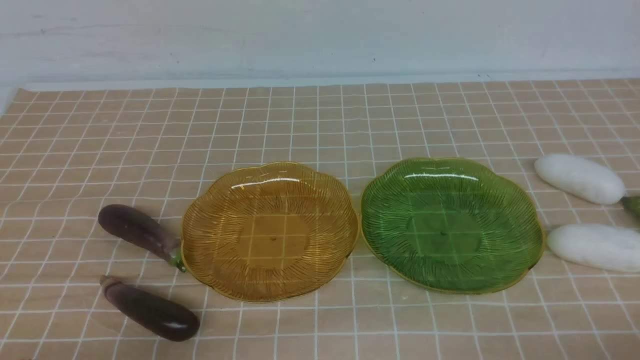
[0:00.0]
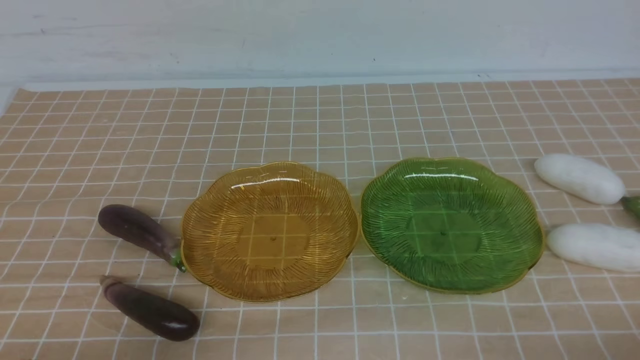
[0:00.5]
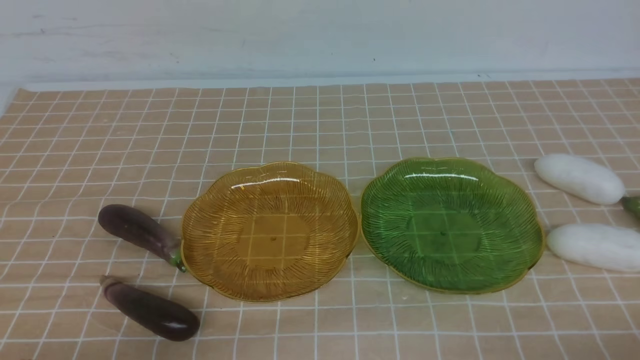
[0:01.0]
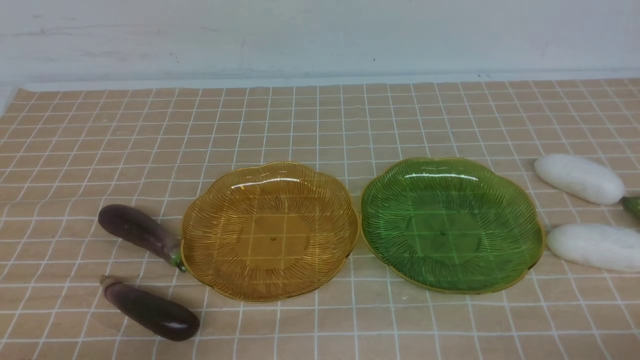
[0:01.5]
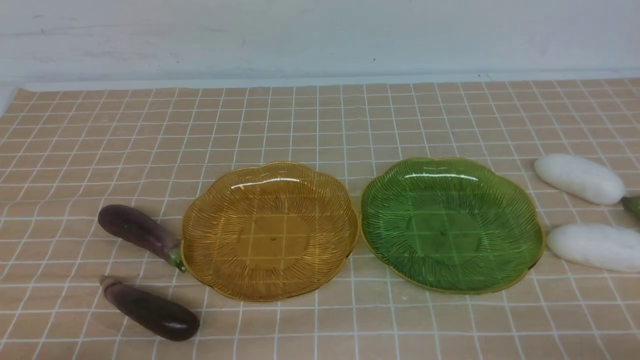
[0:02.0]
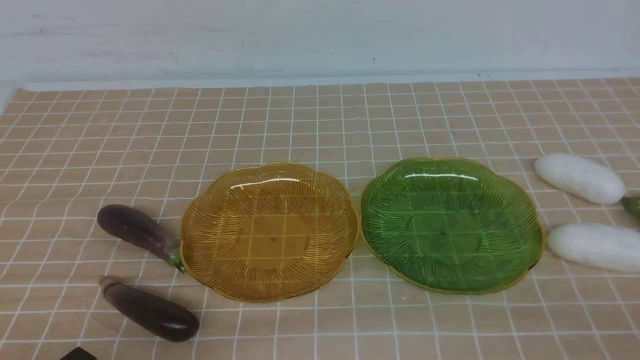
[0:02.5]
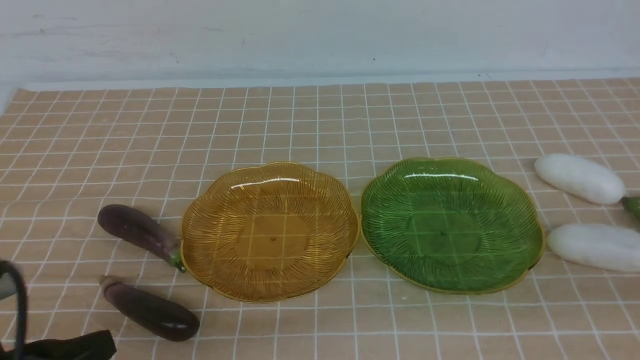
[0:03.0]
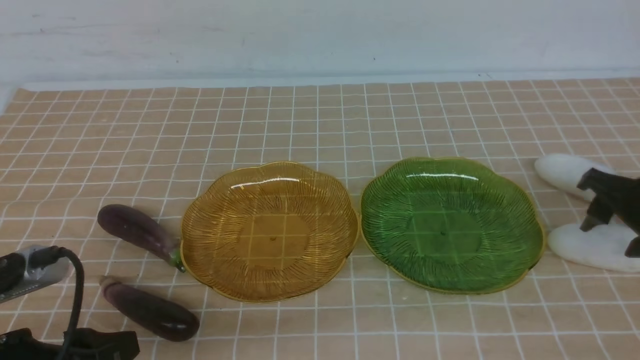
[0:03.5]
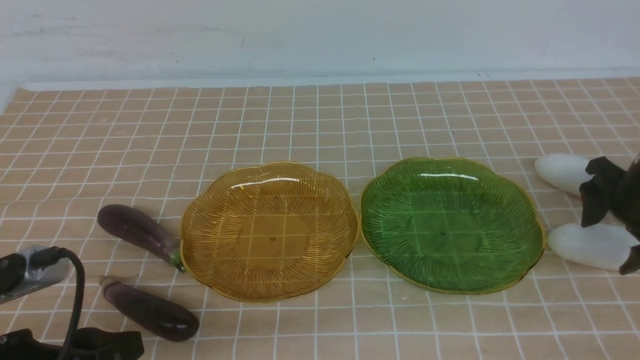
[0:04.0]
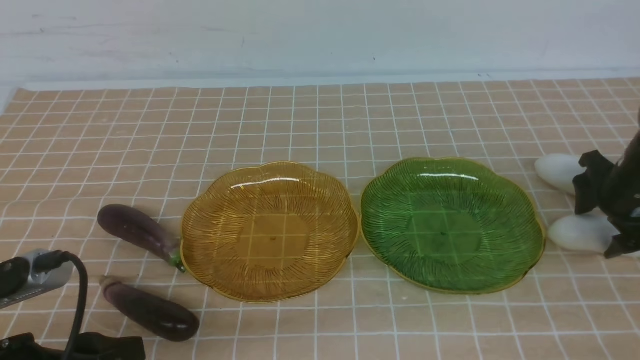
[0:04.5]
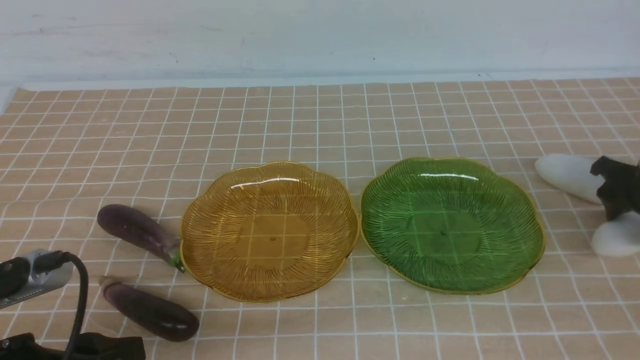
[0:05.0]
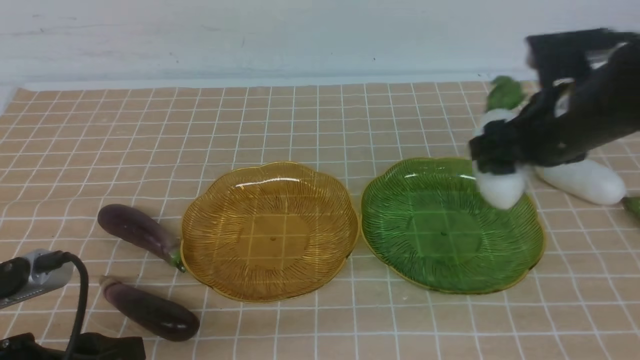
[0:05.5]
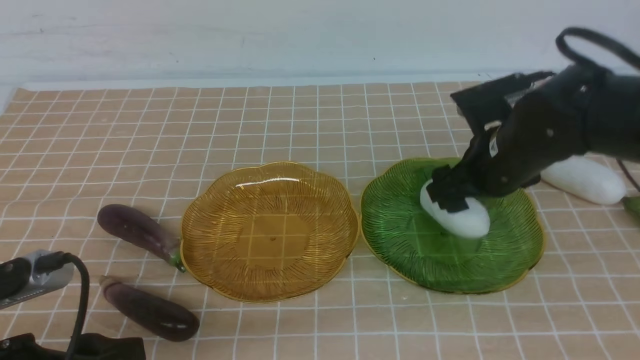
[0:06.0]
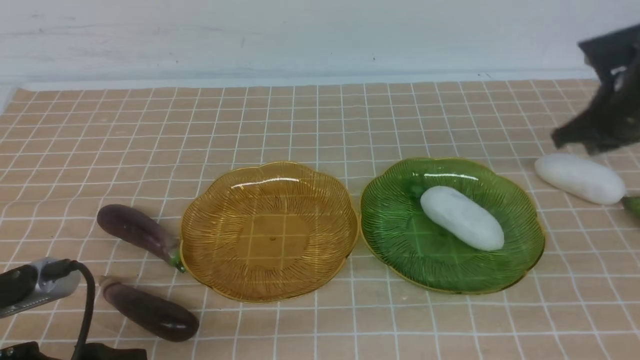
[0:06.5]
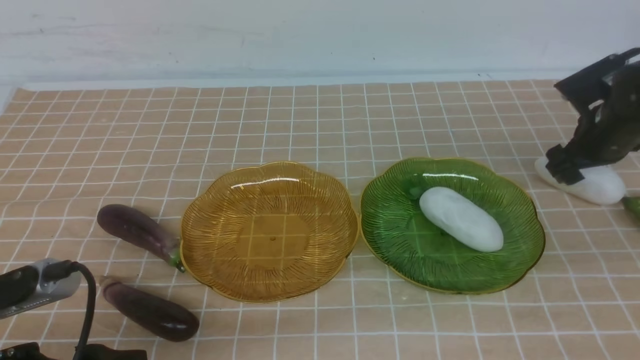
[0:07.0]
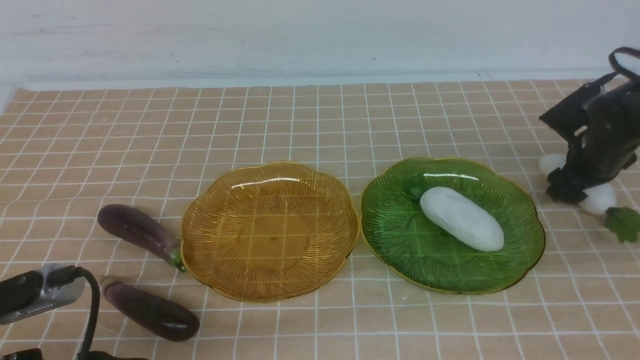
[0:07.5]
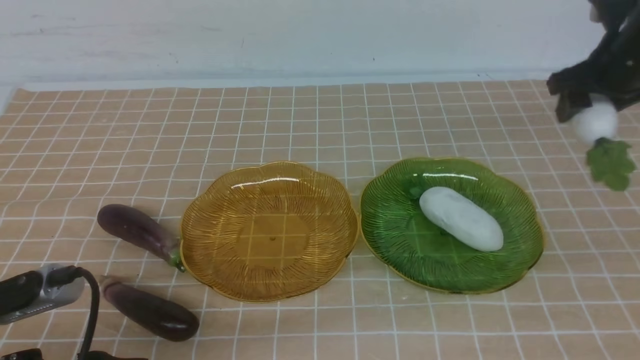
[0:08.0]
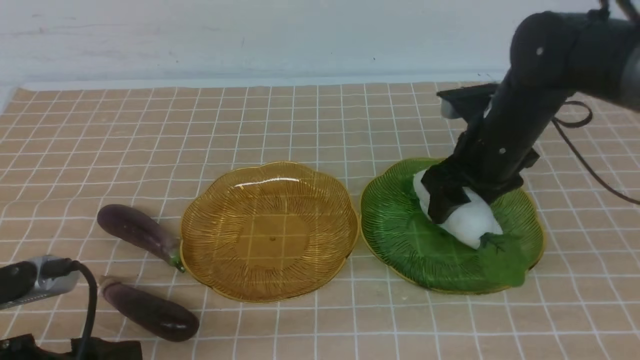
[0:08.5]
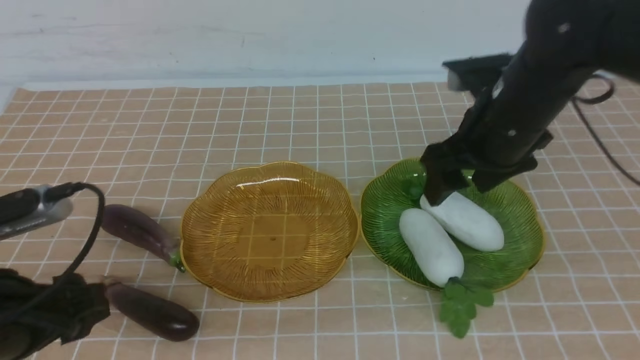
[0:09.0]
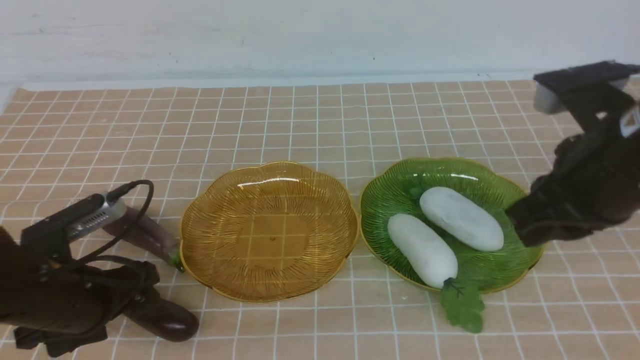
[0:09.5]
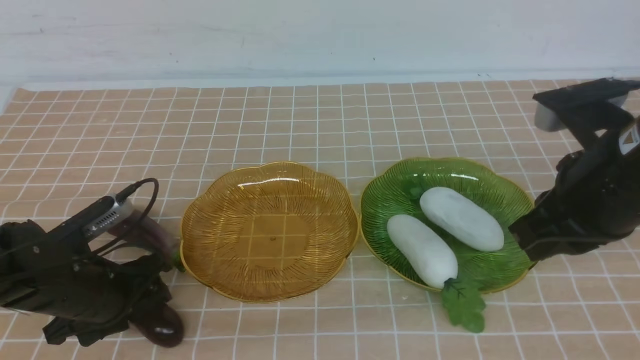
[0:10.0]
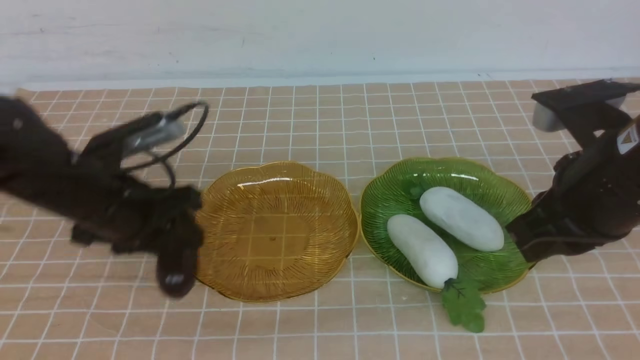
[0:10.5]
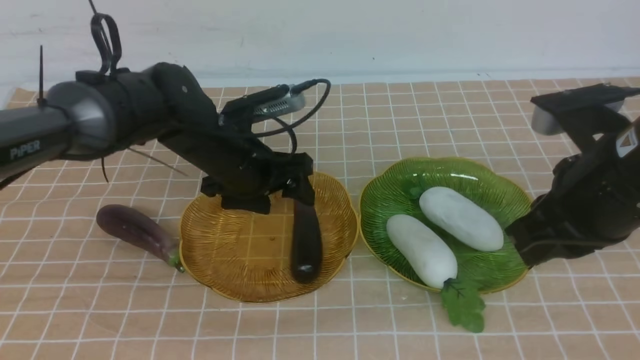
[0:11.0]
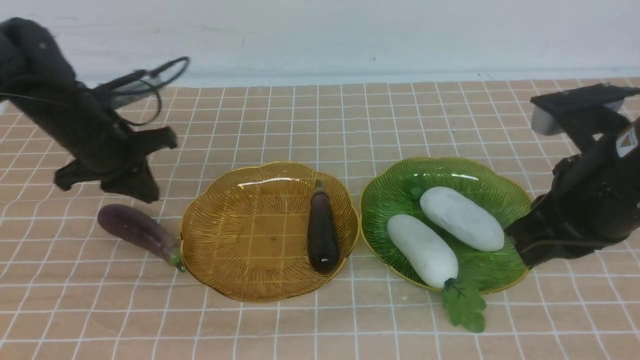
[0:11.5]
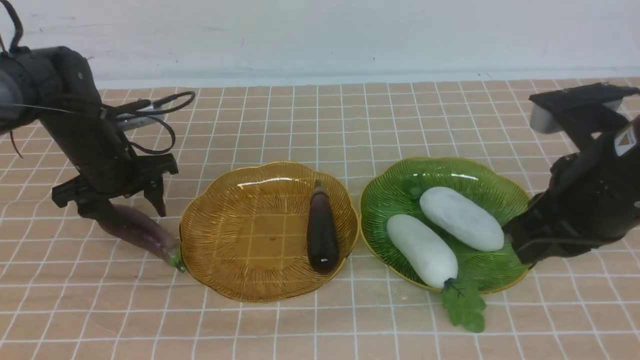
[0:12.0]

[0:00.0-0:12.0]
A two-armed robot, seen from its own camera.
Step, 0:00.0 to 0:08.5: use the right arm to grab a radish and put it into the right plate.
Step, 0:09.5 to 0:11.0: use the left arm to grab an eggplant and put it into the left plate.
0:02.0 to 0:04.0: The right gripper heads forward, covering roughly 30 cm, and opens its fingers. Meanwhile the left gripper is displaced upward and forward by some 10 cm, and opens its fingers.
0:04.0 to 0:06.0: The right gripper moves to the left, approximately 15 cm.
0:06.0 to 0:08.0: The right gripper is displaced to the right and forward by about 15 cm, and closes and opens again.
0:08.0 to 0:10.0: The left gripper heads forward, covering some 15 cm, while the right gripper travels backward and to the left by roughly 25 cm, and closes up.
0:10.0 to 0:12.0: The left gripper goes some 15 cm forward.

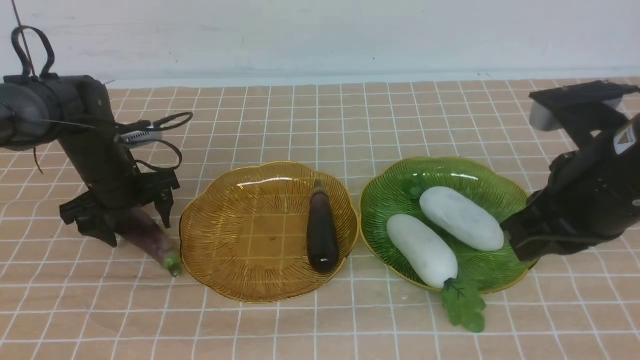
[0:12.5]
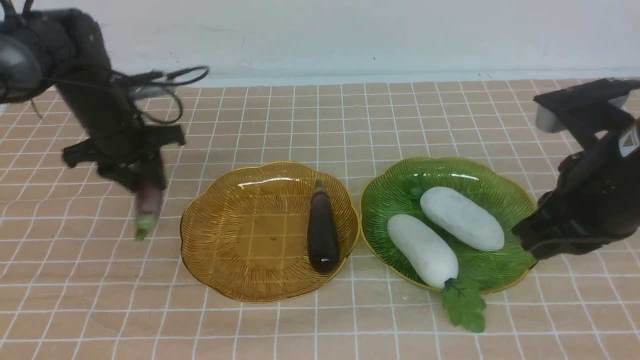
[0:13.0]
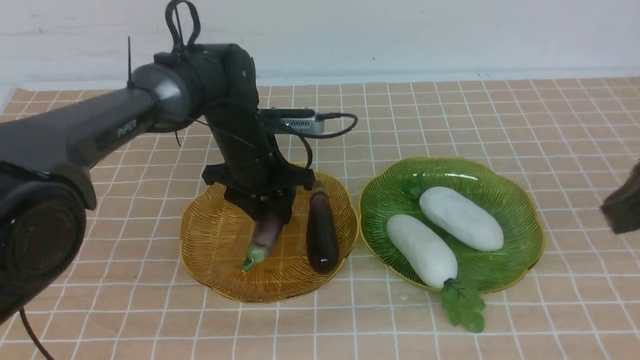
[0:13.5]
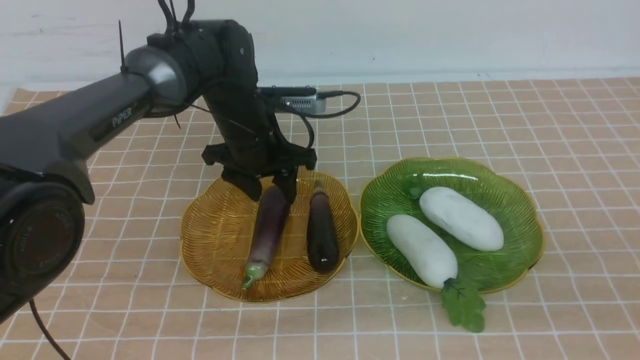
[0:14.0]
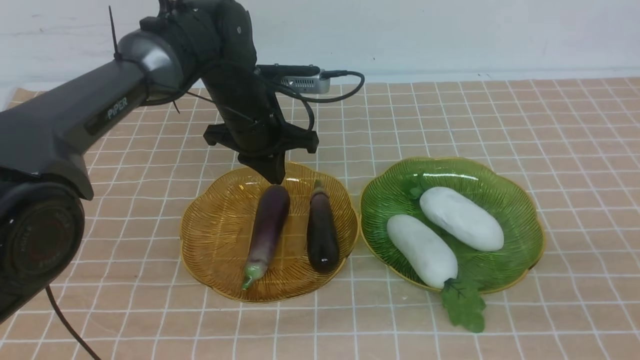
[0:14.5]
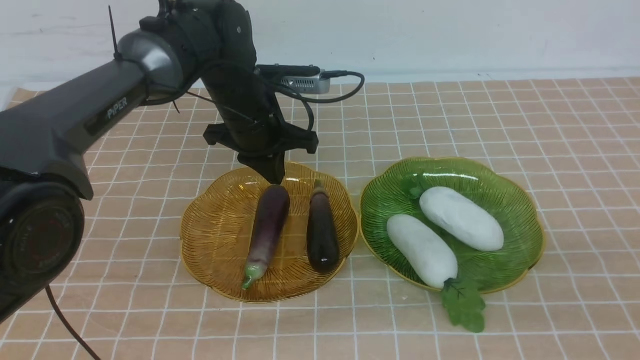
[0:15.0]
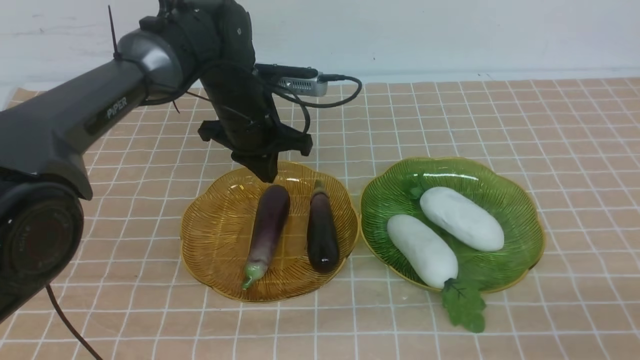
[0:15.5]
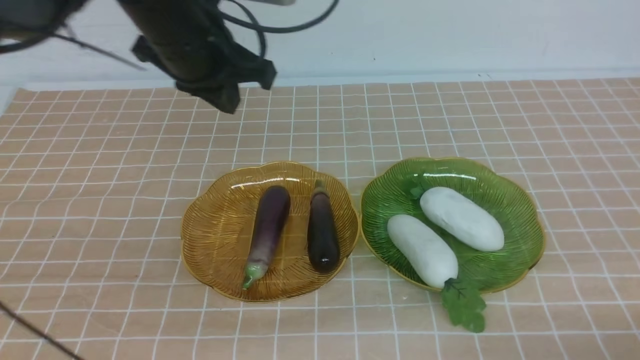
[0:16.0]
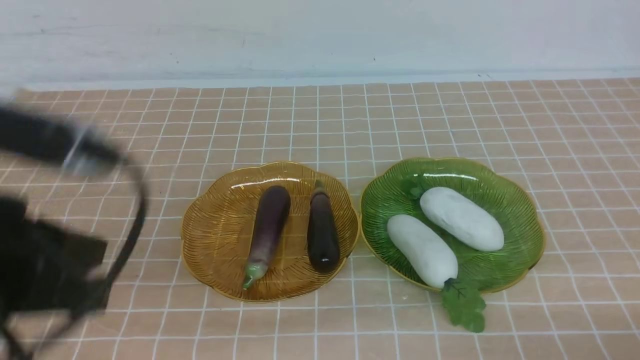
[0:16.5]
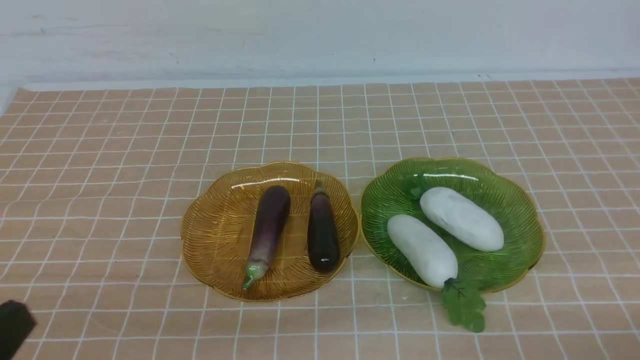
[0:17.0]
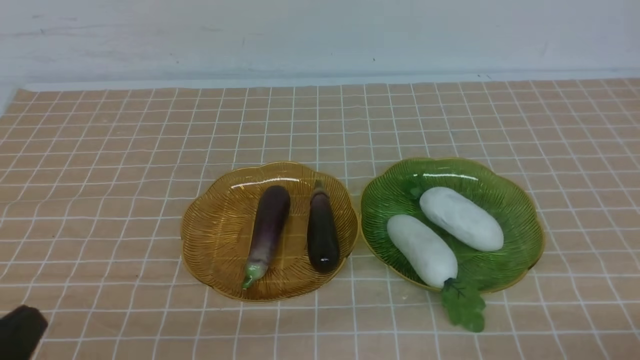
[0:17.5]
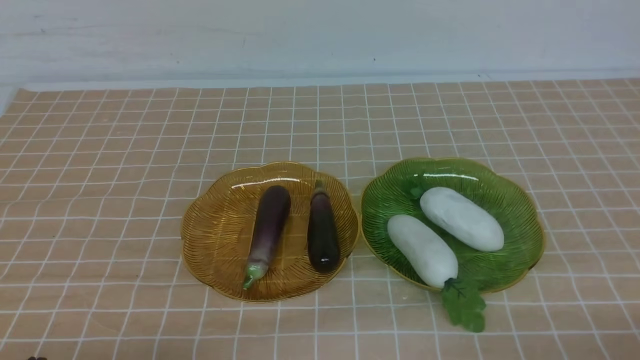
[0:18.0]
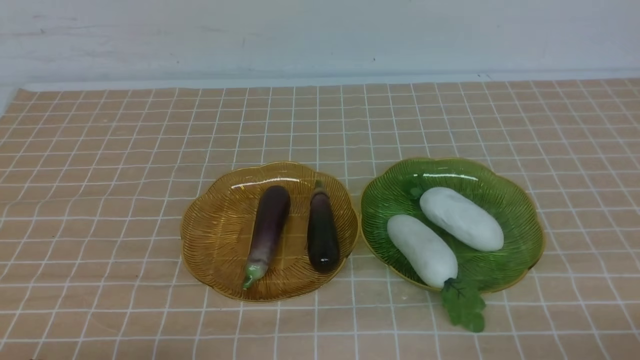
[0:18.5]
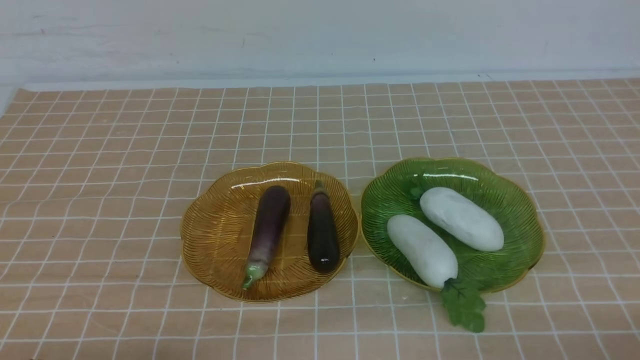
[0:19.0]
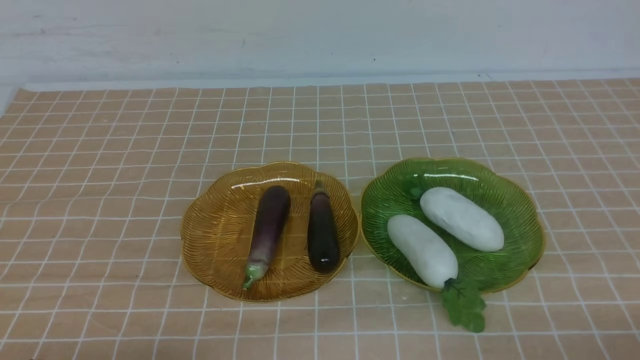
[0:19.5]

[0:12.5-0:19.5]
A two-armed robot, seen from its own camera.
0:12.5 to 0:14.5: The right gripper goes roughly 15 cm backward and to the right; the left gripper moves to the right, approximately 10 cm, and closes.
0:14.5 to 0:16.0: The right gripper moves downward, approximately 10 cm. Meanwhile the left gripper travels backward, upward and to the left by approximately 20 cm.
0:16.0 to 0:17.5: The left gripper is displaced backward and downward by approximately 30 cm.
0:17.5 to 0:19.5: The left gripper moves downward, approximately 10 cm.

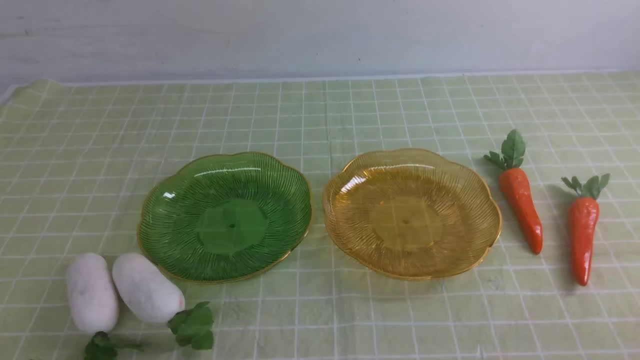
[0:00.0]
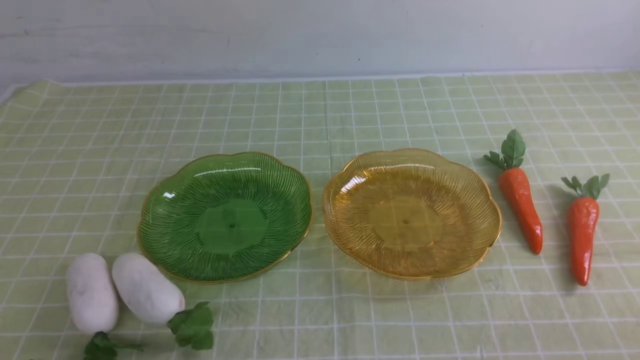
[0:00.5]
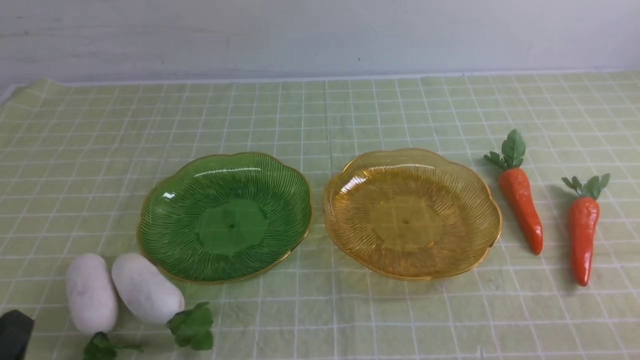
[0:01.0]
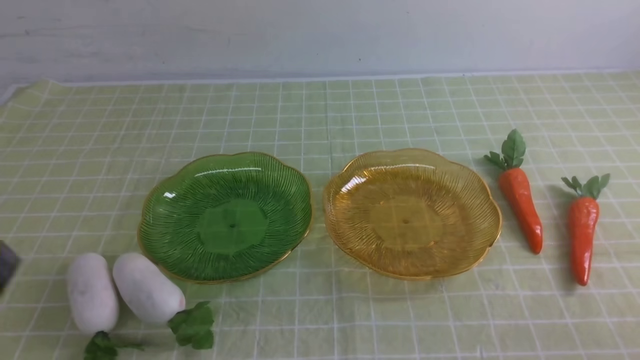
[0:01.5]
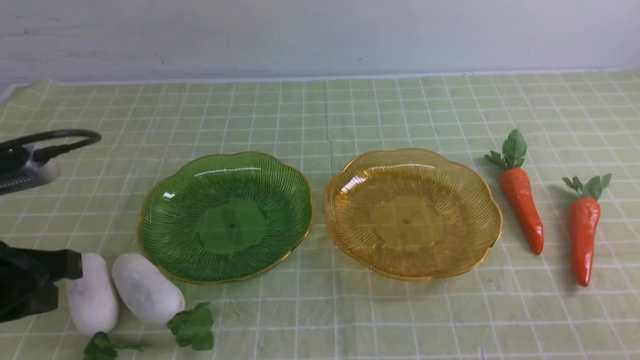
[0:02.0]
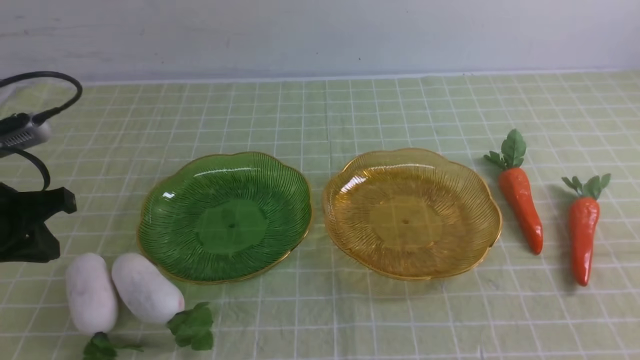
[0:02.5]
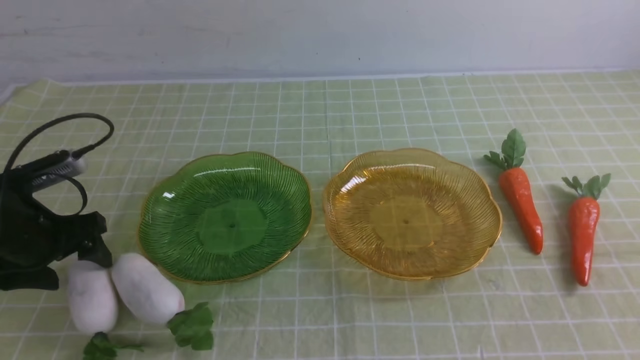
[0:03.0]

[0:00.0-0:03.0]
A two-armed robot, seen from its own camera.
0:01.5 to 0:03.0: The left gripper is displaced forward and downward by some 25 cm, and opens up.
